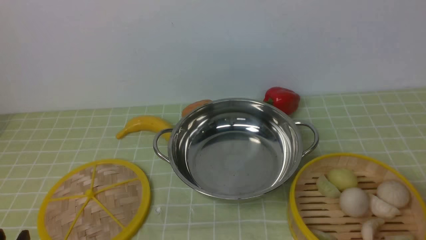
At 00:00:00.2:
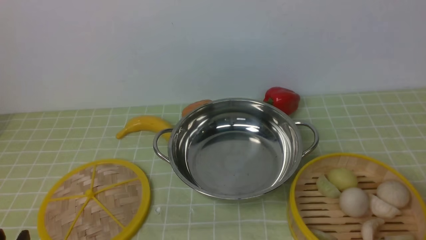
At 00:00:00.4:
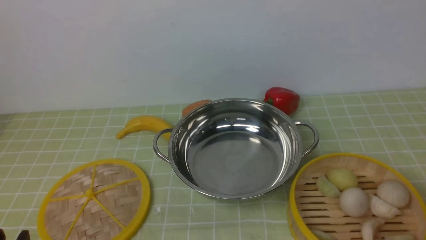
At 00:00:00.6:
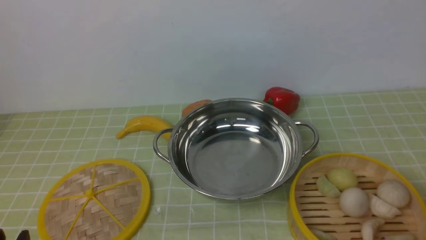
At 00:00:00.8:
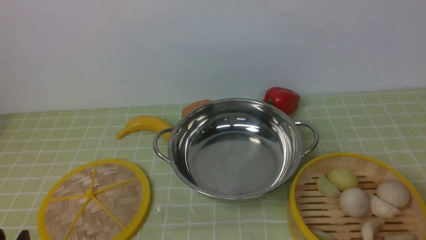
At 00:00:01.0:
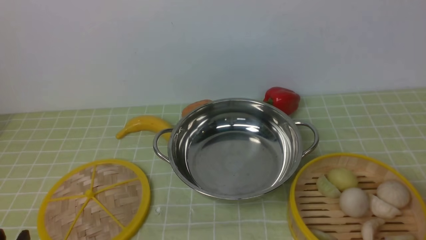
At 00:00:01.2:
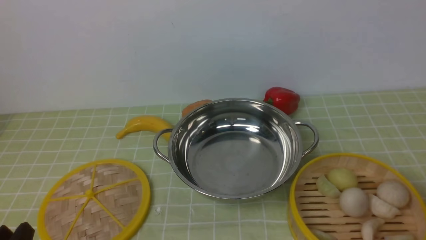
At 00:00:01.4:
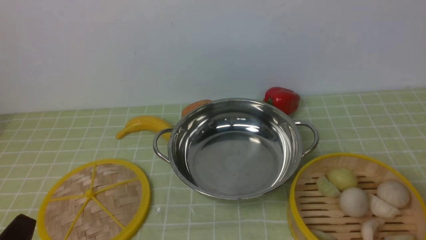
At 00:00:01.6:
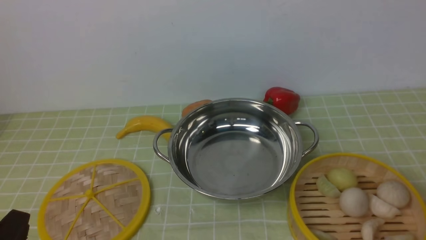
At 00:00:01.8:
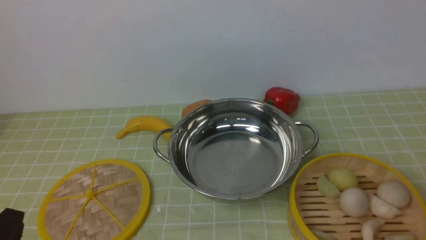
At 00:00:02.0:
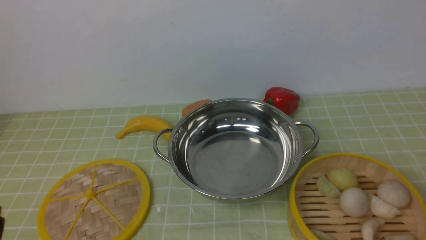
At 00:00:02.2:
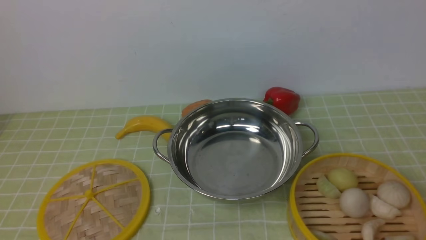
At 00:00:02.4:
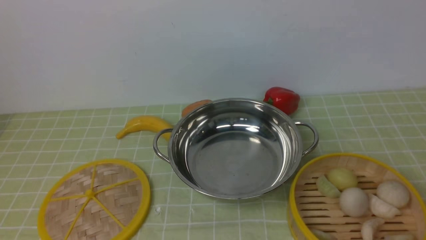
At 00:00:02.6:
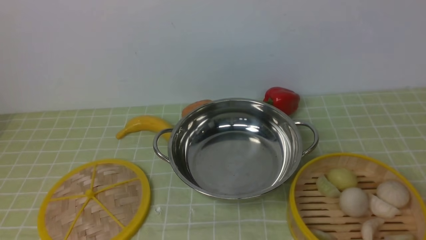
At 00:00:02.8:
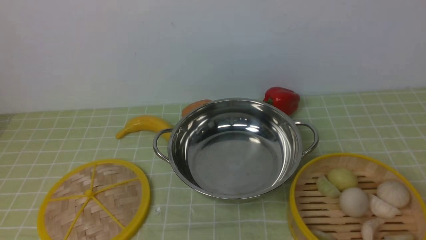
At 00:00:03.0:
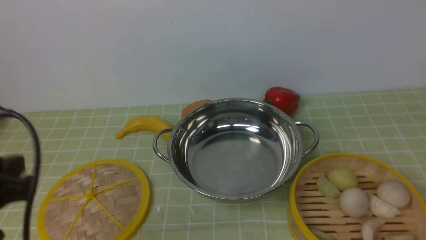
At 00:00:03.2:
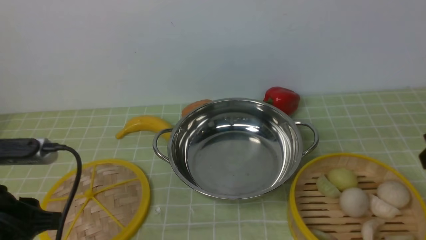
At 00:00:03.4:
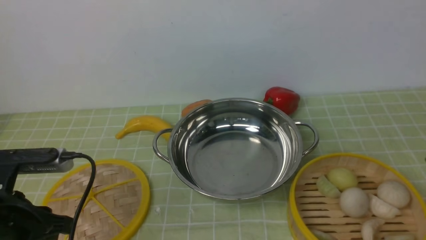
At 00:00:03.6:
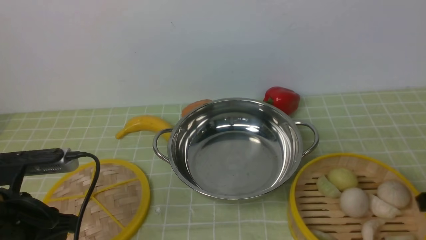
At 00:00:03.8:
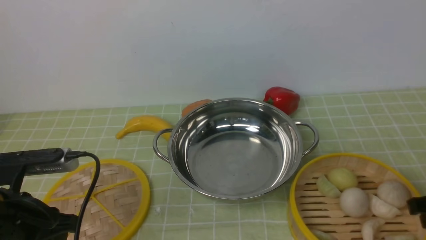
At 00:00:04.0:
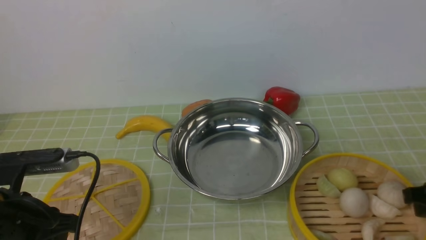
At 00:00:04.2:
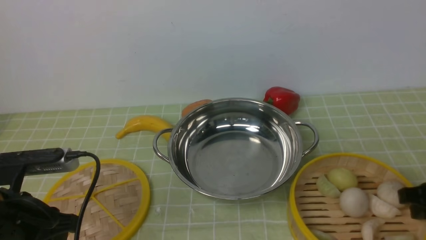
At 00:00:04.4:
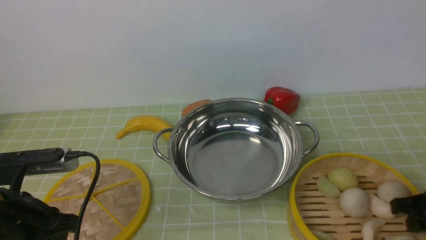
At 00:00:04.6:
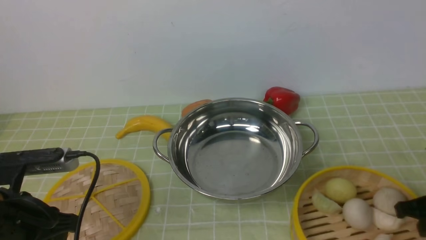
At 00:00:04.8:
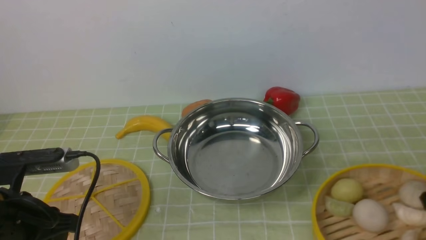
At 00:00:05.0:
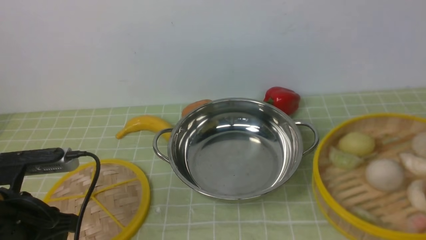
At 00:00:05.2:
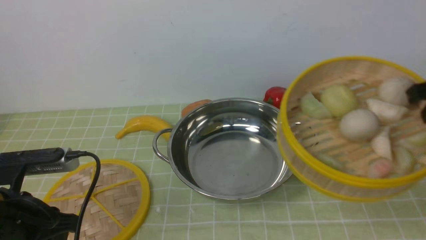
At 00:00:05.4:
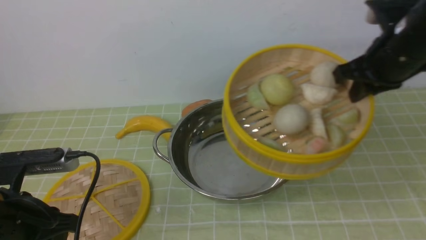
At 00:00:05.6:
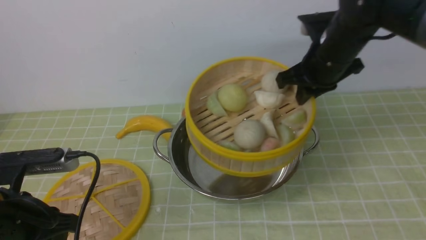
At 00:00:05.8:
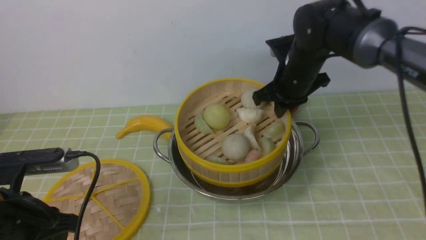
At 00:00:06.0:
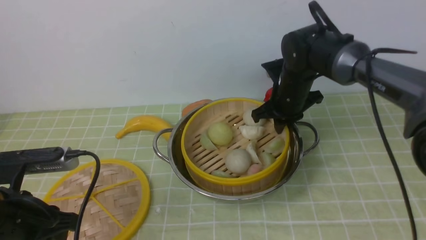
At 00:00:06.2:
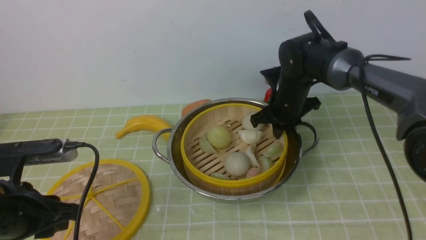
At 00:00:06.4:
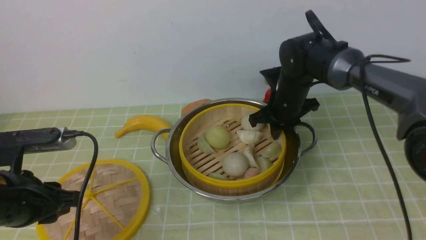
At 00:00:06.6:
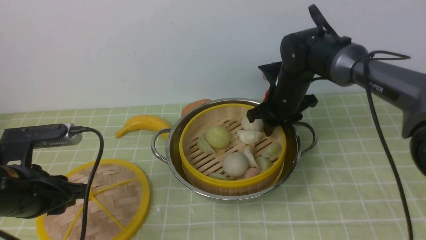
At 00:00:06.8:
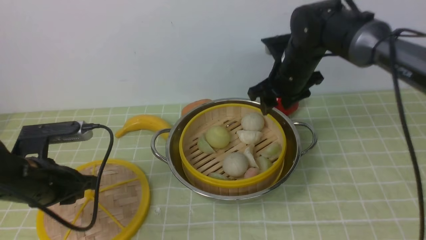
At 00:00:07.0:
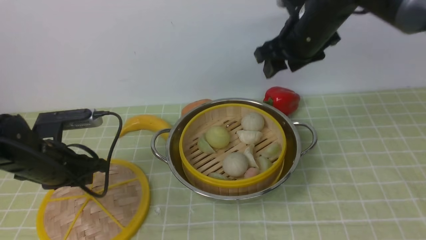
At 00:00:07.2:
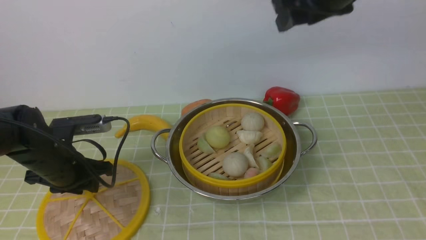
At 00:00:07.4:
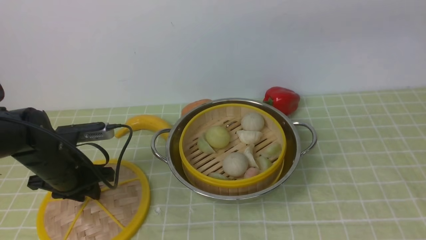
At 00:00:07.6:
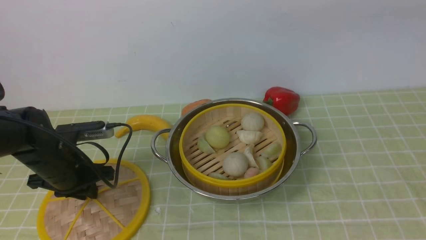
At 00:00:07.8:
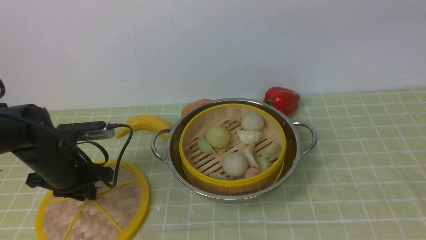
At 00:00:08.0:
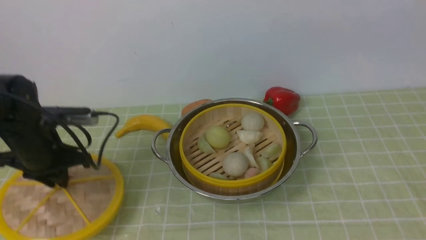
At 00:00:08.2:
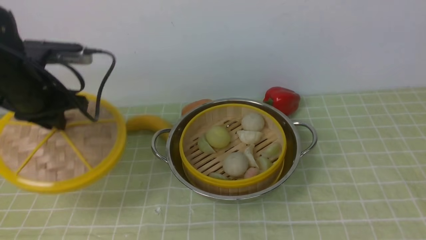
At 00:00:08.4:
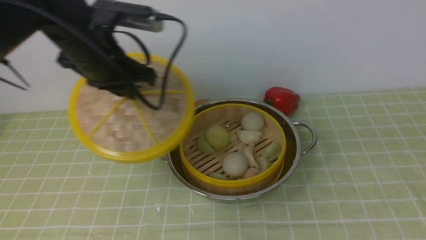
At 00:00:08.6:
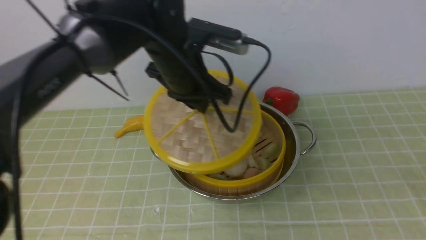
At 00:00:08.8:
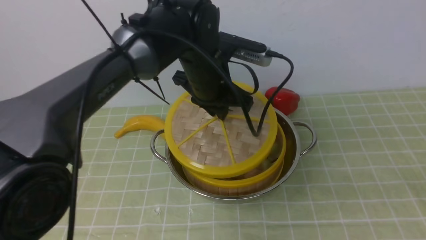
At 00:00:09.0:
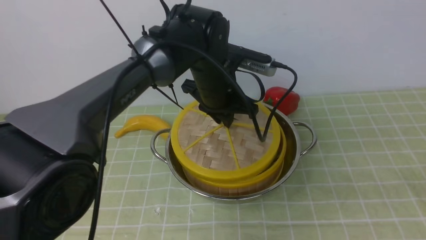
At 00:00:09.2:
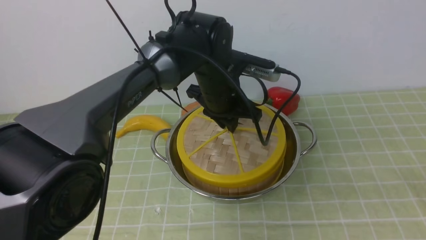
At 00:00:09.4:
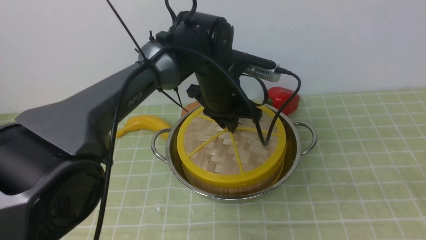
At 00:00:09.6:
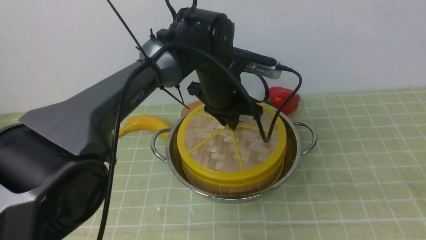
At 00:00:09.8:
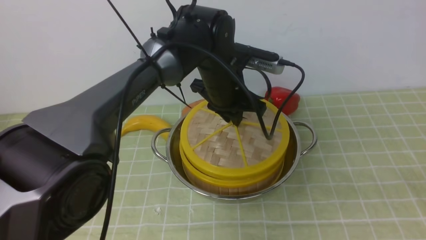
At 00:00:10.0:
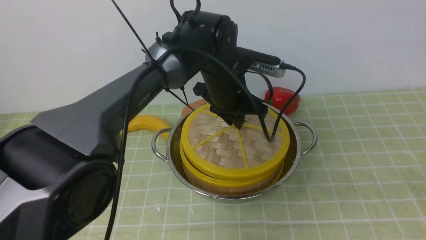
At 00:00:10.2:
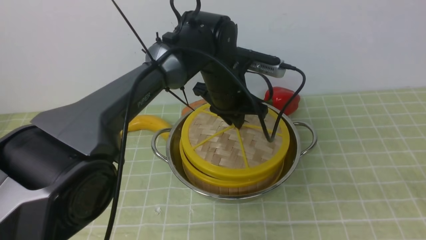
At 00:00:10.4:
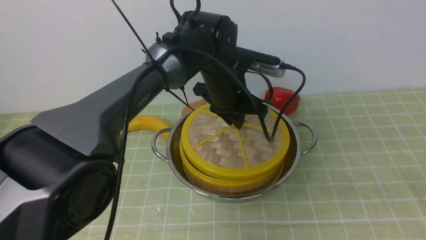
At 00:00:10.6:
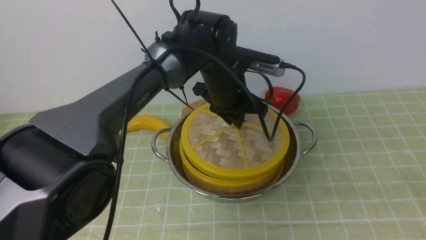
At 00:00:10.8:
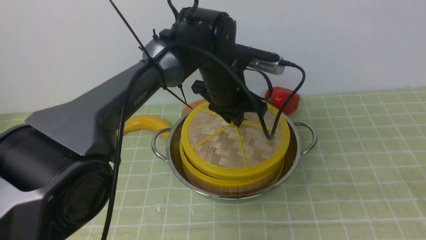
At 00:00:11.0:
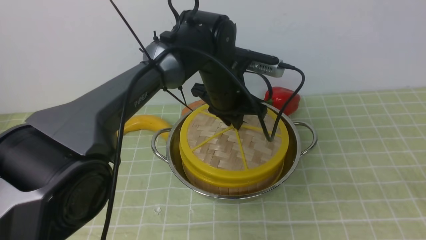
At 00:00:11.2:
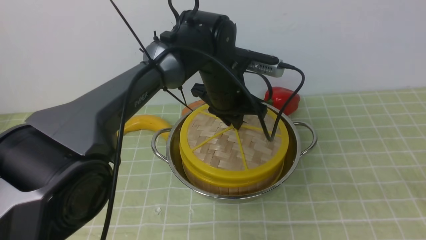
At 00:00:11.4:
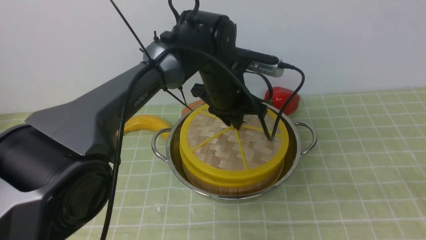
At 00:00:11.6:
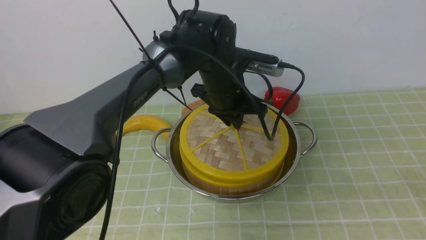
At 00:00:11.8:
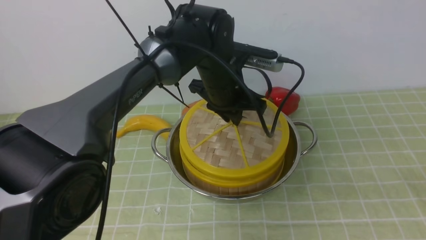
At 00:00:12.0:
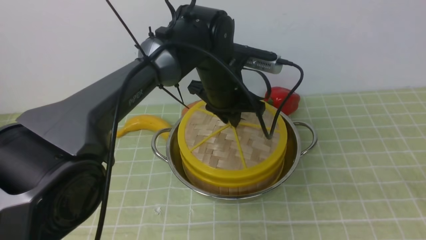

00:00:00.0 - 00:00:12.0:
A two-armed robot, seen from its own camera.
Task of the whole recording: place the steamer in the pot on the green tablecloth, and put the lid on the steamer.
Step, 00:00:00.0 - 00:00:05.2: use the right arm to lift the steamer closest to it.
Step, 00:00:05.4 - 00:00:07.2: use the right arm to put the steamer into the iron steamer pot in the middle.
Step, 00:00:07.4 - 00:00:08.0: use the left arm to lift the lid of the steamer.
00:00:01.6 - 00:00:03.0: The left gripper heads upward and forward, covering about 15 cm.
00:00:03.0 - 00:00:04.4: The right gripper heads downward, covering roughly 25 cm, while the left gripper heads downward, covering approximately 10 cm.
00:00:04.4 - 00:00:06.0: The right gripper goes some 30 cm forward and to the left.
00:00:06.0 - 00:00:07.6: The left gripper travels forward and downward by about 15 cm. Meanwhile the right gripper moves upward and backward, approximately 35 cm, and opens up.
00:00:07.6 - 00:00:09.0: The left gripper shifts about 25 cm to the right and upward. Meanwhile the right gripper travels backward, downward and to the right by approximately 30 cm.
00:00:10.4 - 00:00:12.0: The two grippers keep their place.

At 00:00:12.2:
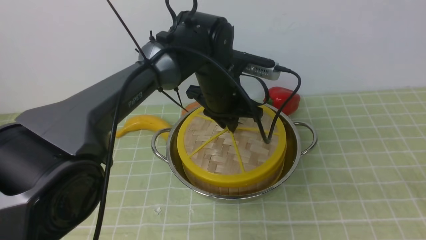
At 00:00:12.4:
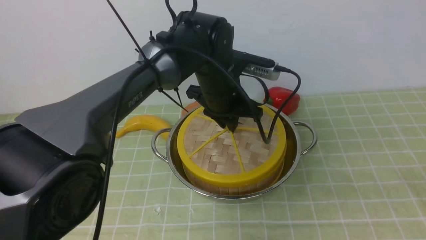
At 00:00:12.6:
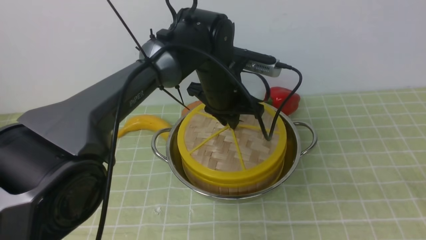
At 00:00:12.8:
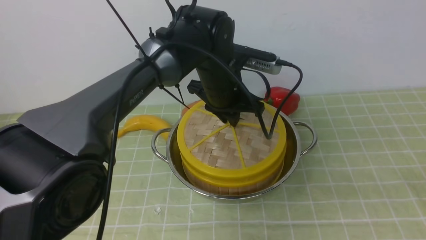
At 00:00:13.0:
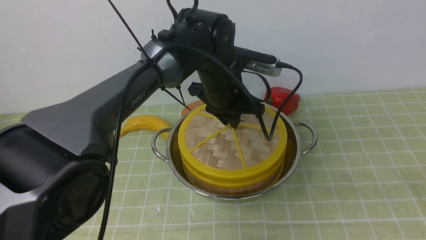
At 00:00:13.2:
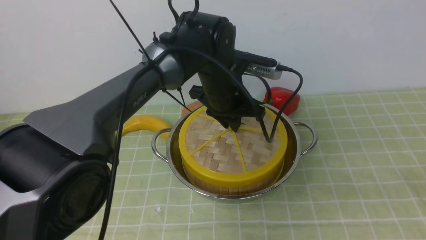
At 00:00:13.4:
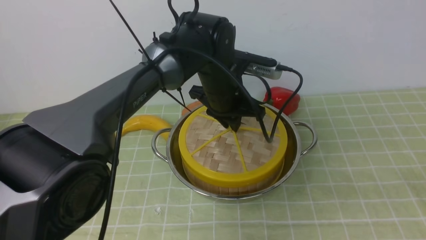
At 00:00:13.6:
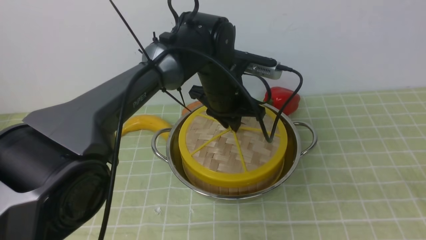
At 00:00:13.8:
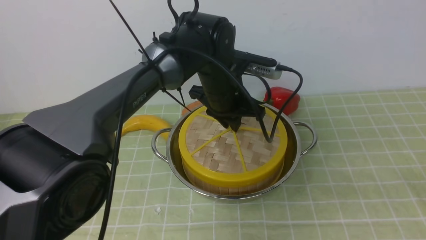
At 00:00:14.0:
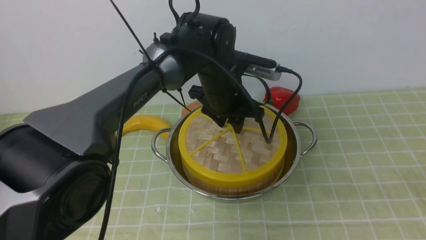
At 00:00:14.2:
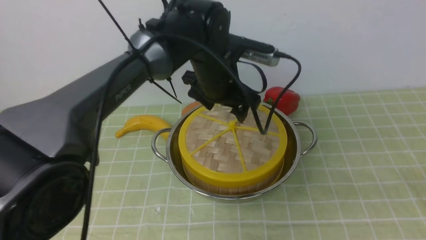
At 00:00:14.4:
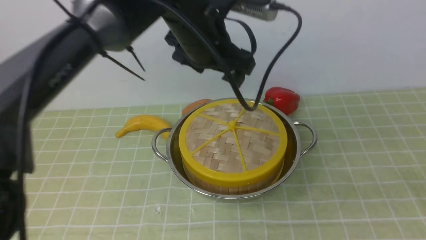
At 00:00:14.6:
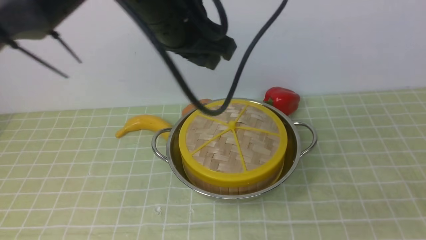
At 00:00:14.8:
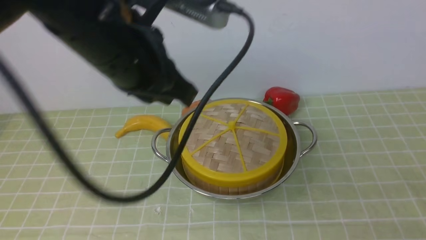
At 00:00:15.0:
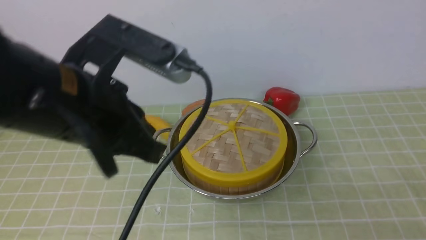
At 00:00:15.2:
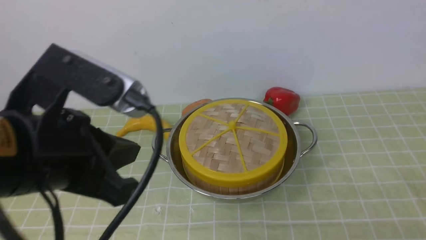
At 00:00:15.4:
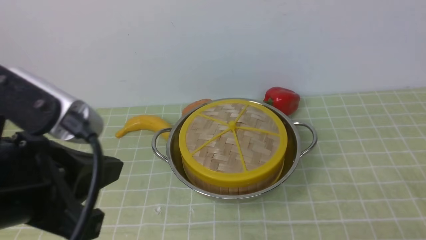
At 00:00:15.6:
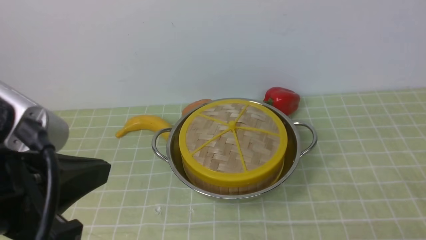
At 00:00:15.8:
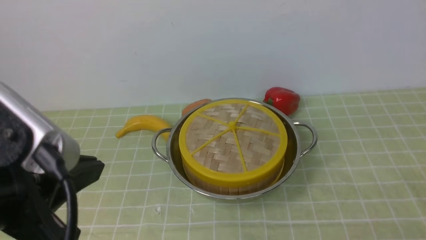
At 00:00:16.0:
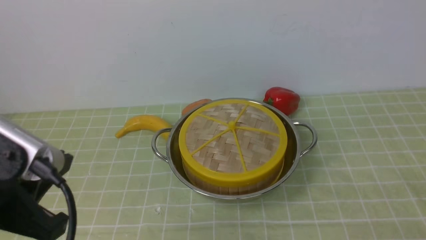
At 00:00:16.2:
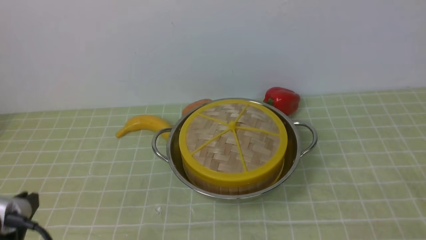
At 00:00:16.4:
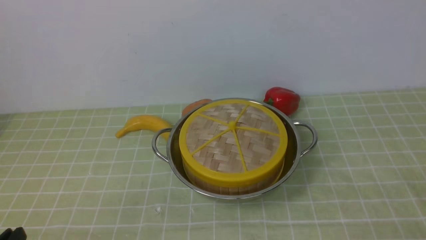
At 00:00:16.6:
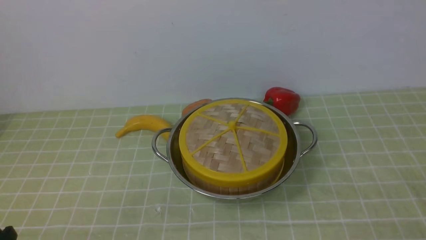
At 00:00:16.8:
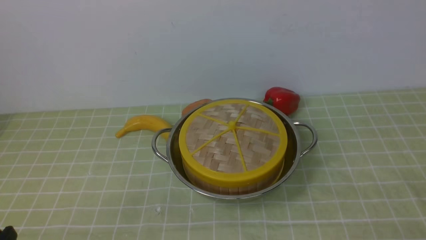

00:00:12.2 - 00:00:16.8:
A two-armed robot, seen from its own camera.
Task of the whole recording: place the steamer in the pot on the green tablecloth, and put the lid on the steamer.
00:00:12.2 - 00:00:13.8: Both grippers stay about where they are.
00:00:13.8 - 00:00:15.2: The right gripper is displaced downward by some 5 cm, and closes, while the left gripper heads backward, to the left and upward, covering approximately 30 cm, and opens, then closes again.
00:00:15.2 - 00:00:16.8: The left gripper is displaced downward, backward and to the left by some 25 cm.
